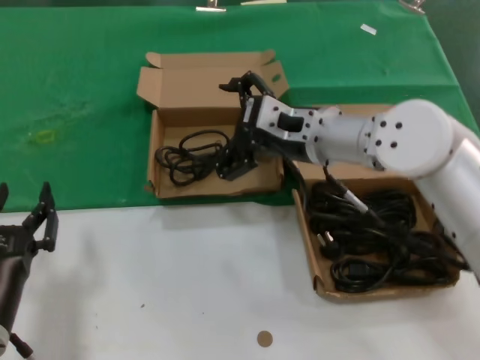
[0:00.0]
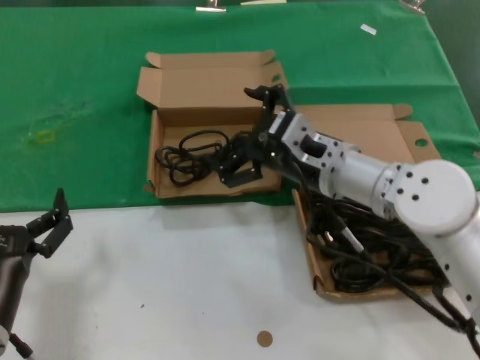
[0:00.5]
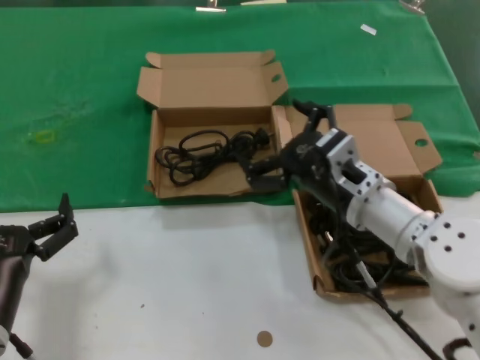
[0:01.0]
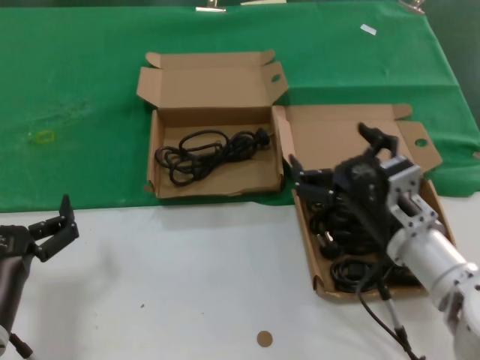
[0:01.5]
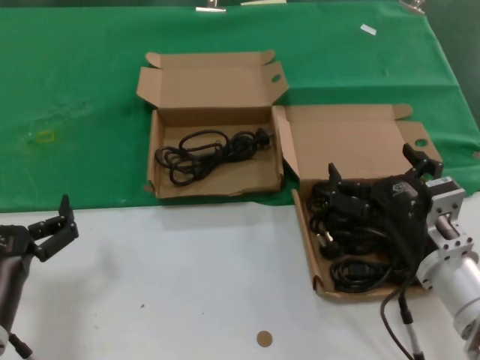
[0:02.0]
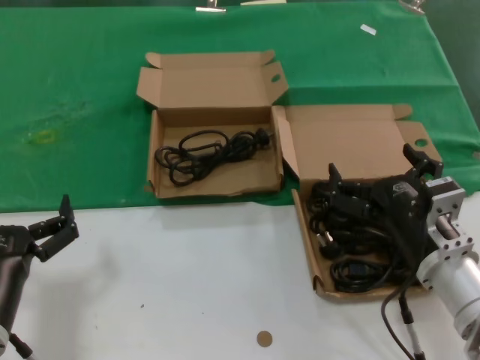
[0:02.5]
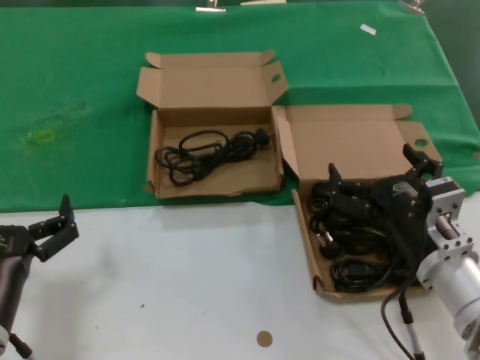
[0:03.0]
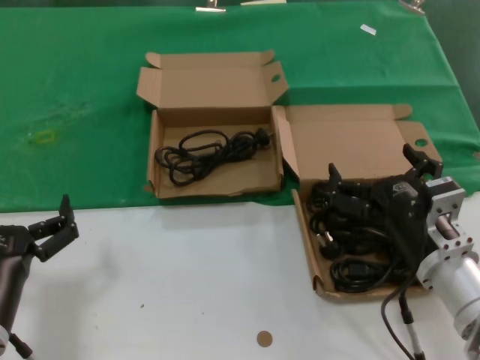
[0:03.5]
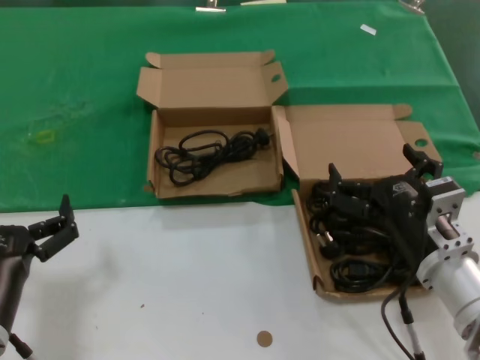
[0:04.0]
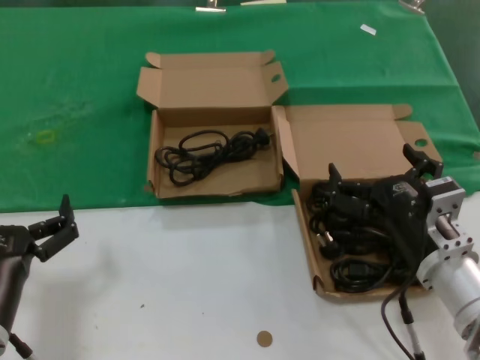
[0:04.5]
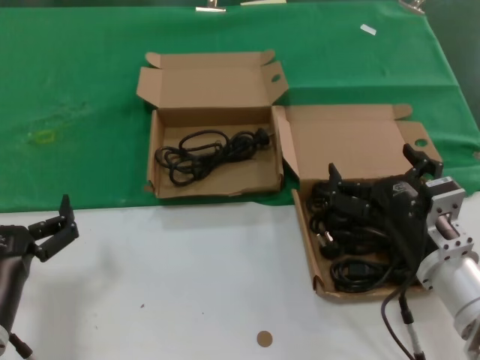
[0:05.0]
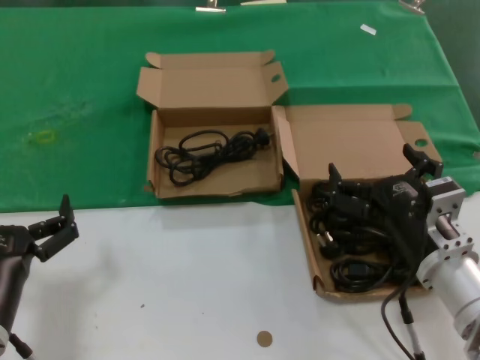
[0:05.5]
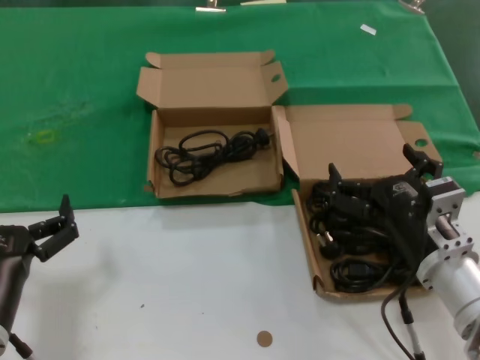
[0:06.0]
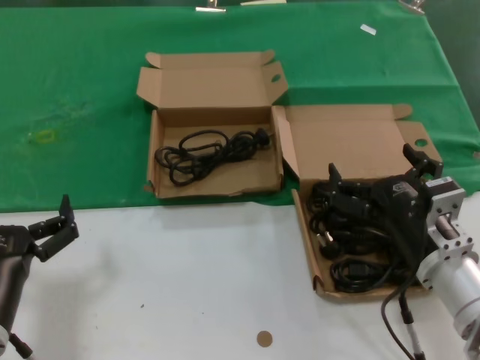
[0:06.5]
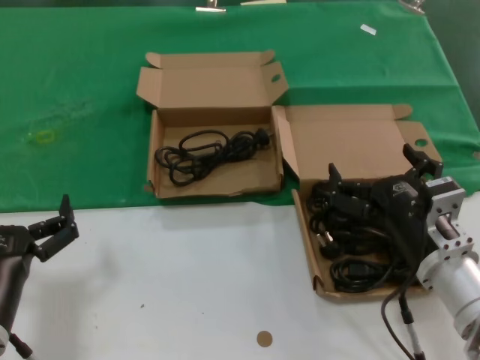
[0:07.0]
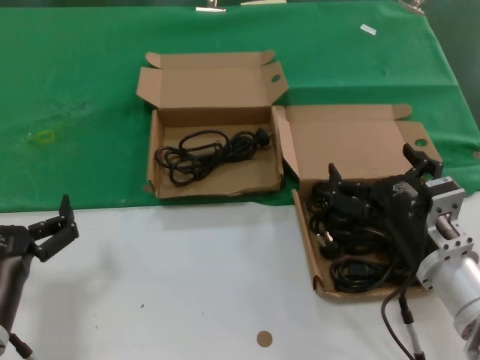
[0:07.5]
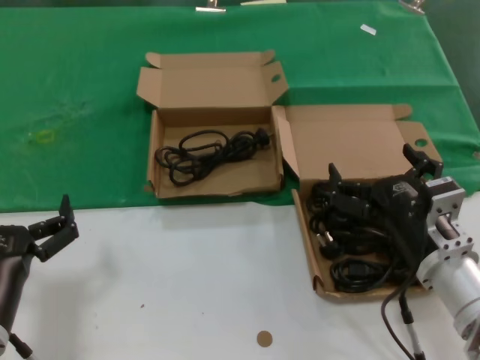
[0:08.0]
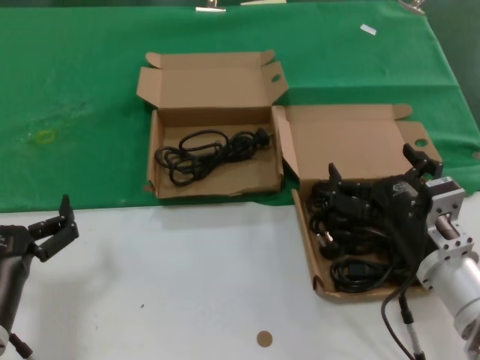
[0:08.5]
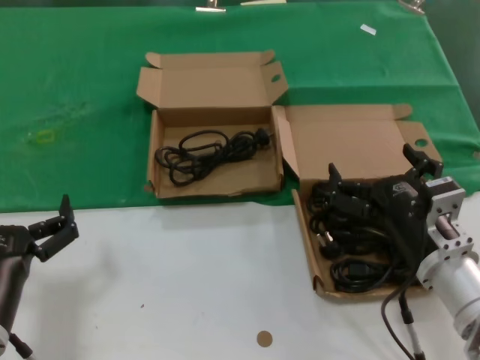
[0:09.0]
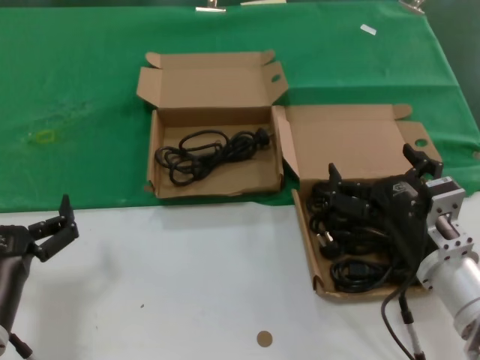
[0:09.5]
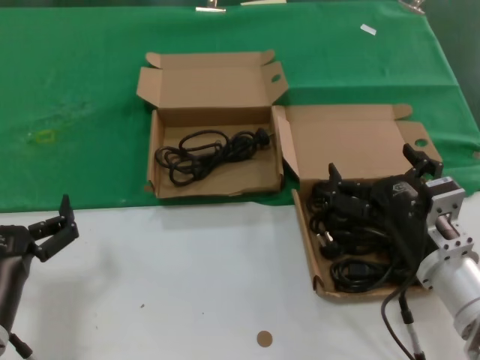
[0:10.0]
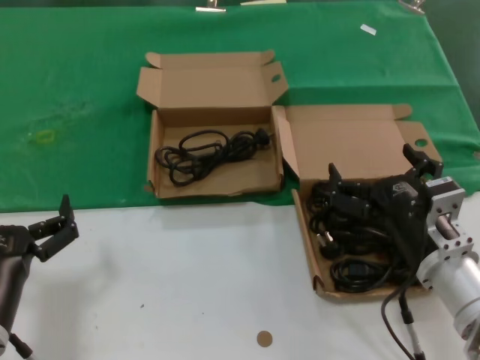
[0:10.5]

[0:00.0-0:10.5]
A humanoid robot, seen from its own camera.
Task of the whole recording: take the parts from the box containing them and put them into an empty box.
0:00.0 to 0:02.0: The right hand goes some 25 cm backward, downward and to the right.
0:02.0 to 0:10.5: The two hands keep their place.
